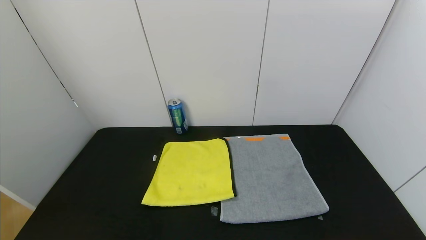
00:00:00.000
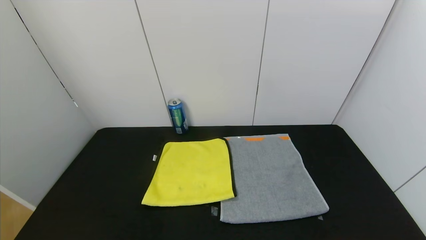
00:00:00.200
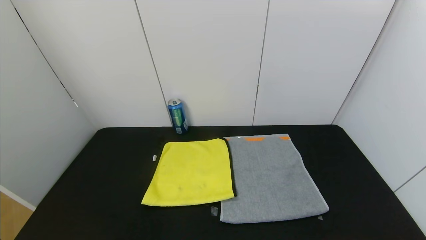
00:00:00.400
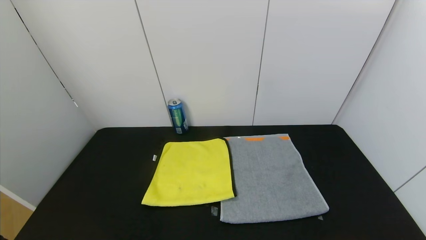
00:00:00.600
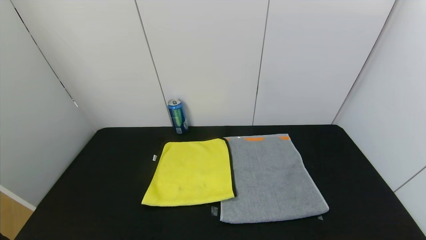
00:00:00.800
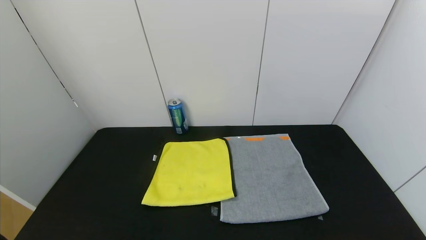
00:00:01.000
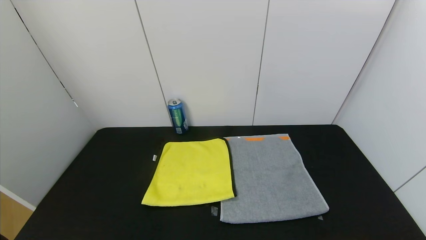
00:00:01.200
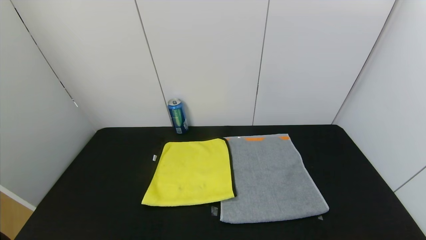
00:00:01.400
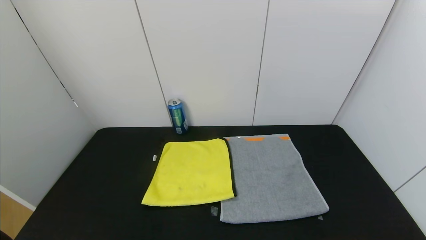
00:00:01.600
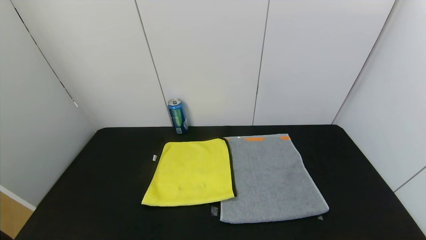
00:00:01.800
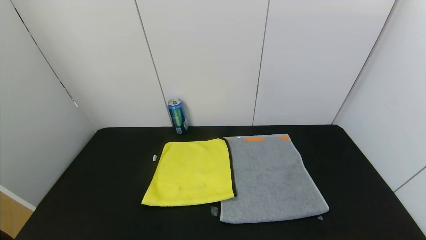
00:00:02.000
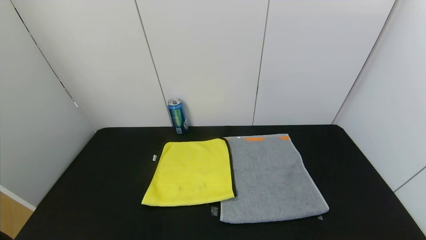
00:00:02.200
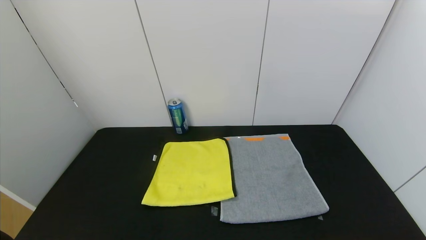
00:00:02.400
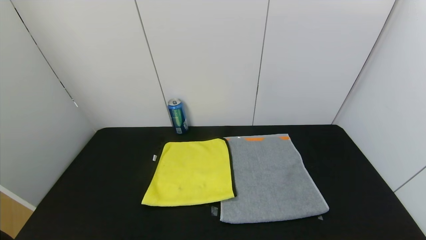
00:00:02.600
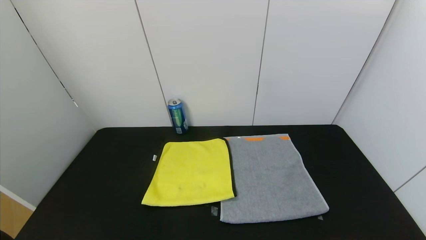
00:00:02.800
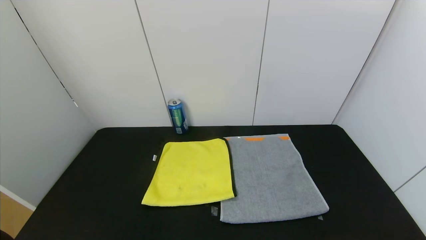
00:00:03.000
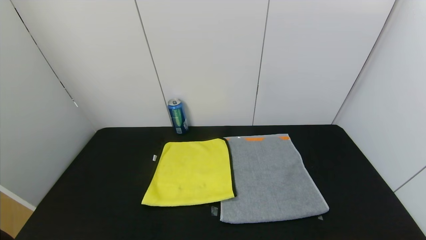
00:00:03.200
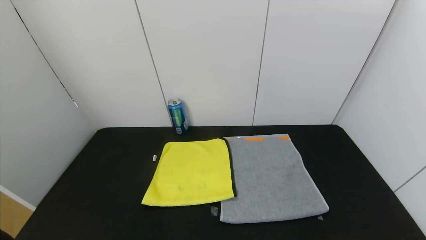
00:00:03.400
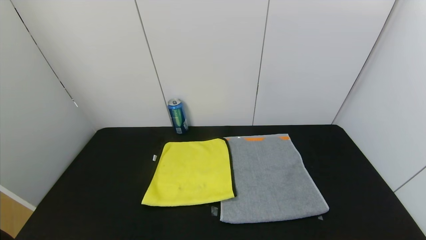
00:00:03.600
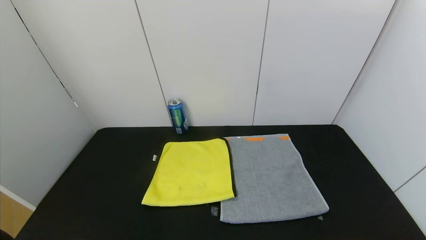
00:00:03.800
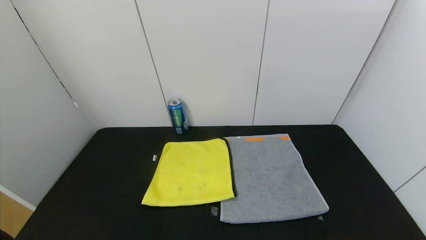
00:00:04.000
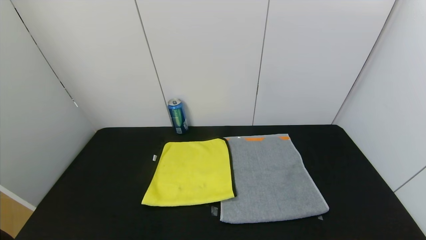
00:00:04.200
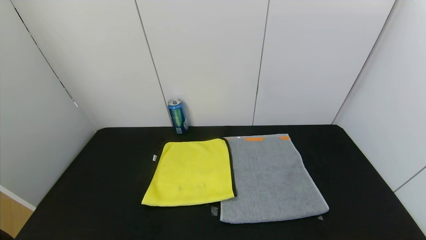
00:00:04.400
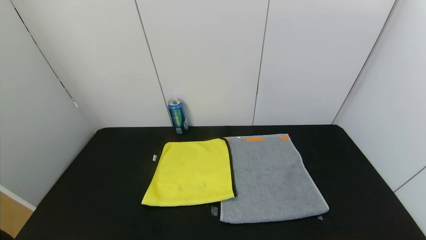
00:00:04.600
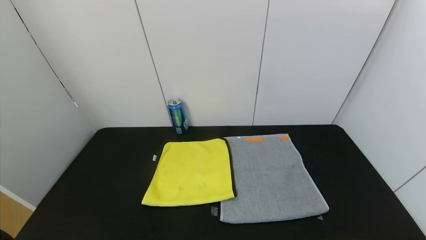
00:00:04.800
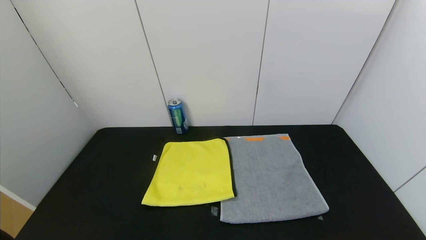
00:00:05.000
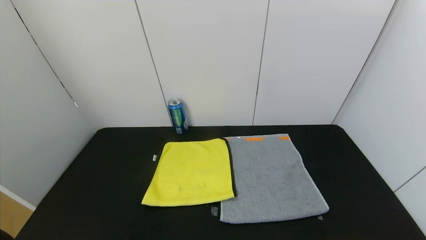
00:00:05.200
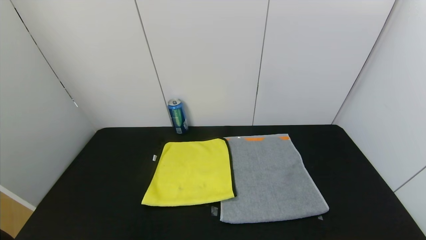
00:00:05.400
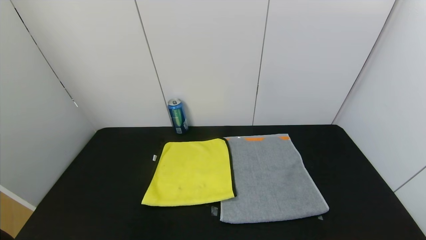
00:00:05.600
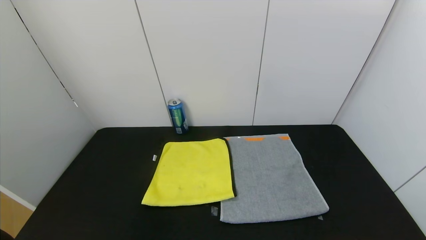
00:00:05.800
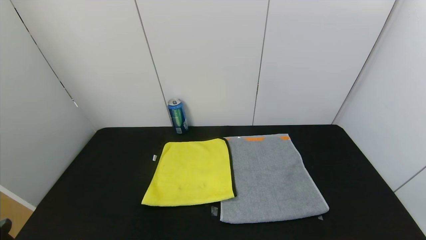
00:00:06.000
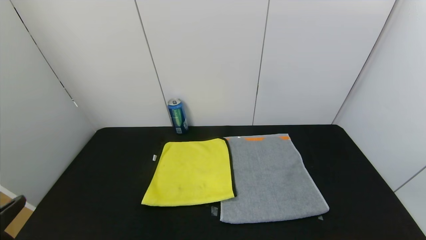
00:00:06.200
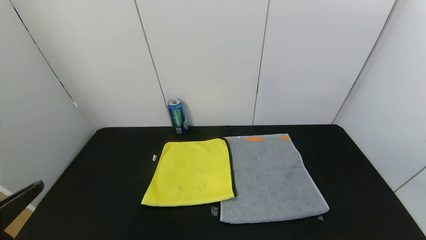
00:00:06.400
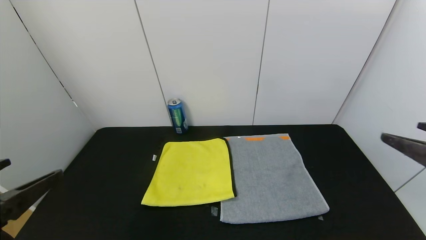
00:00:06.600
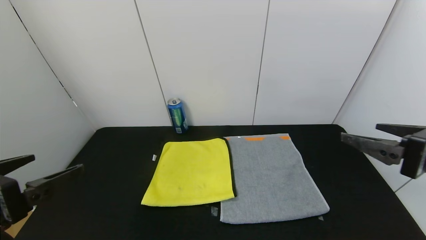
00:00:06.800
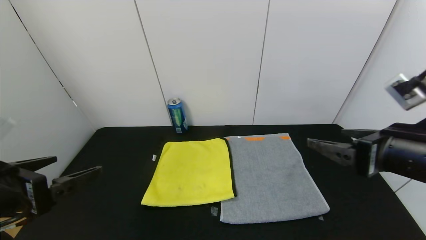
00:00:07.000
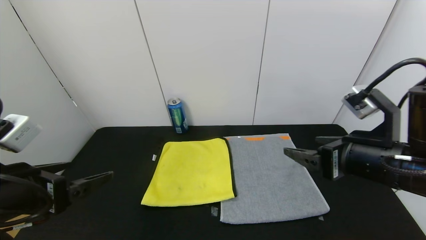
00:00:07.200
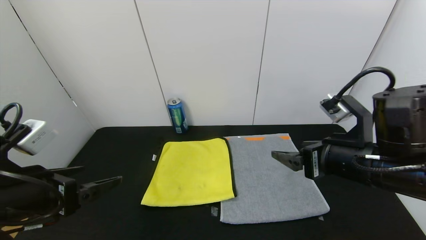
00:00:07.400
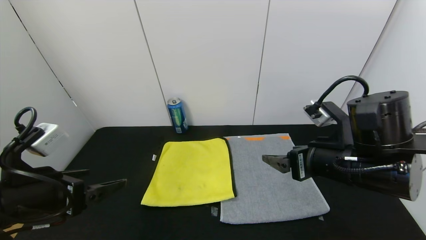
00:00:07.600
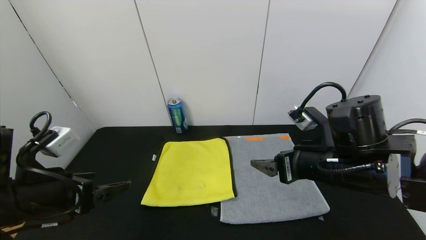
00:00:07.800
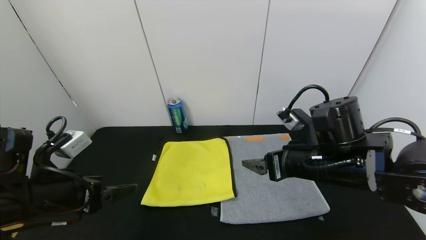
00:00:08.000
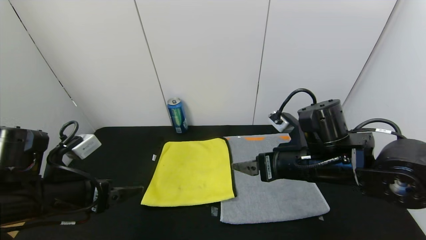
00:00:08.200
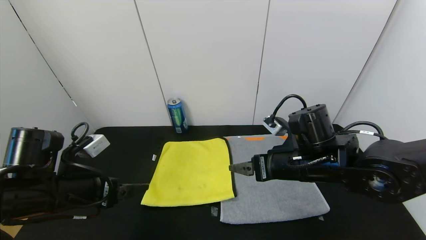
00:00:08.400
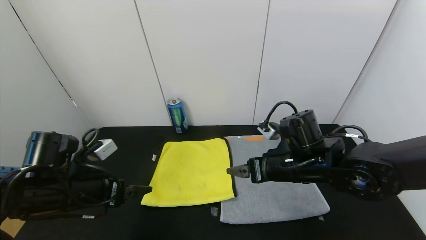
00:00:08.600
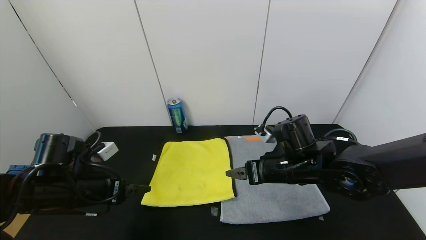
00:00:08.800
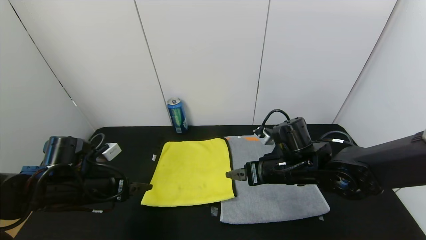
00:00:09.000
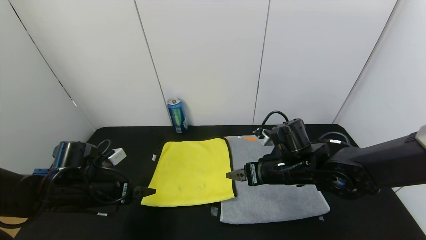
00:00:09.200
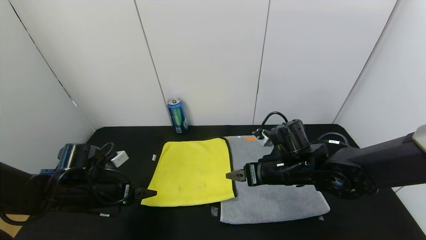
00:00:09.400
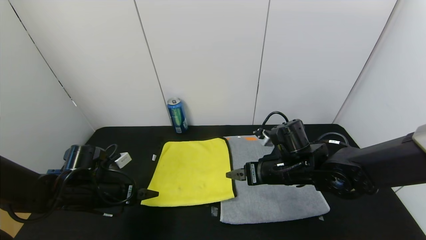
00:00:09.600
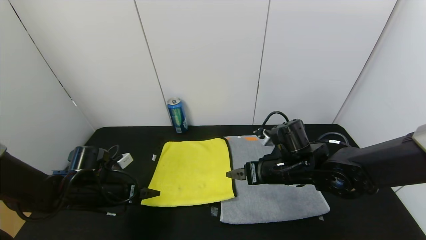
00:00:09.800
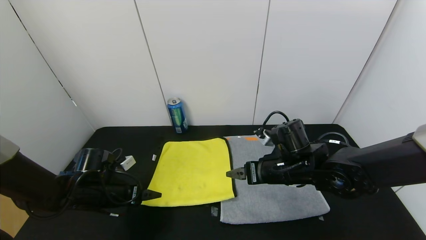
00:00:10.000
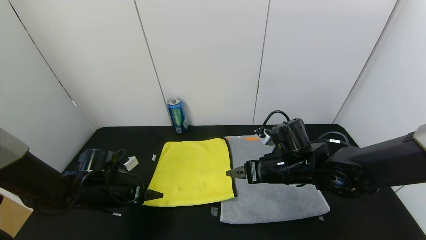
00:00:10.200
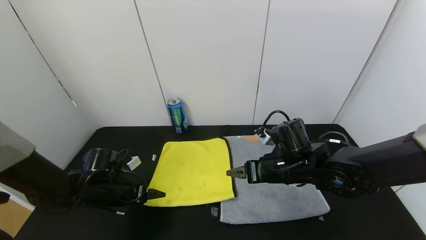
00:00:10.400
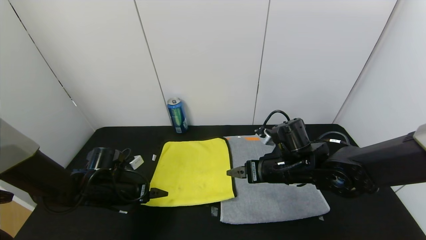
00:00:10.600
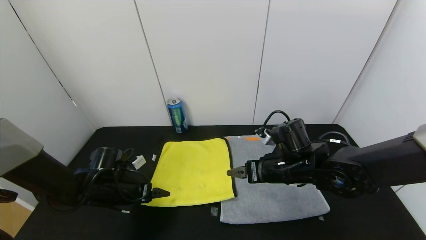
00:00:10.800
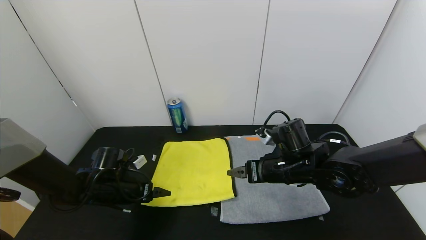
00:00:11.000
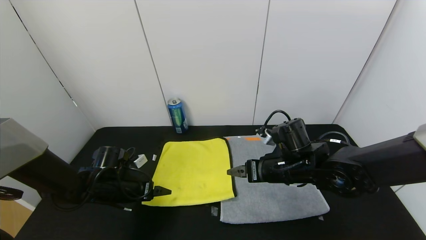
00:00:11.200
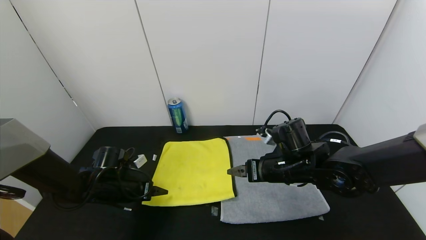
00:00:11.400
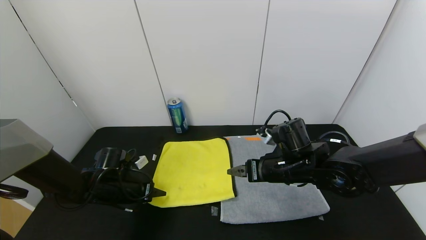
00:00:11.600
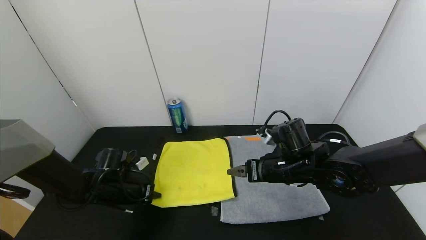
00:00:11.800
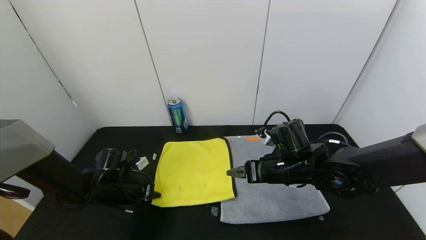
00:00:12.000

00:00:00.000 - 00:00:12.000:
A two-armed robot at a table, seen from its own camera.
Task of the whole recording: Use the gripper to fold the yellow towel and grey towel in half twice,then put the yellow towel on the grey towel.
00:00:00.000 - 00:00:04.400: Neither gripper changes place.
00:00:06.000 - 00:00:07.600: The right gripper moves forward and to the left, about 30 cm; the left gripper shifts about 15 cm forward.
00:00:07.600 - 00:00:09.000: The left gripper is displaced forward and downward by approximately 15 cm, while the right gripper shifts some 10 cm downward, forward and to the left.
00:00:09.000 - 00:00:10.400: The left gripper goes approximately 5 cm downward.
00:00:10.400 - 00:00:12.000: The left gripper closes its fingers.

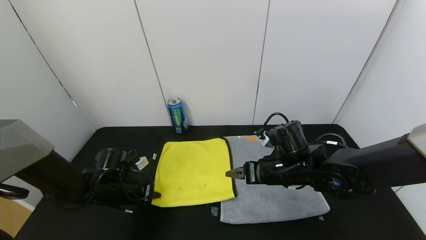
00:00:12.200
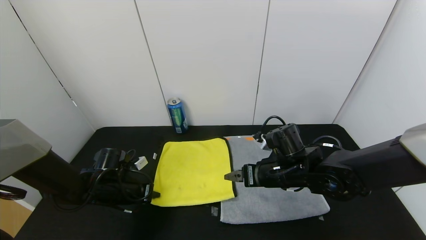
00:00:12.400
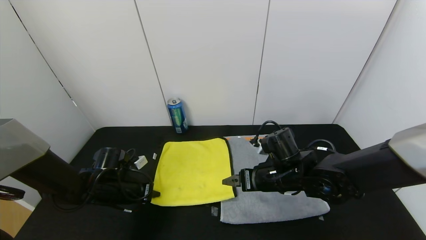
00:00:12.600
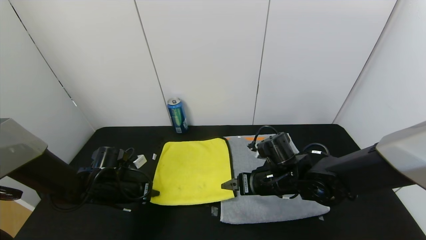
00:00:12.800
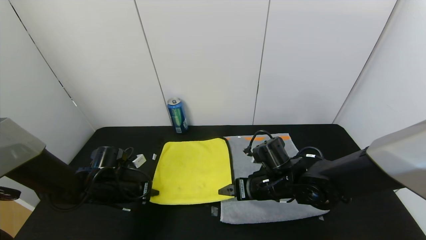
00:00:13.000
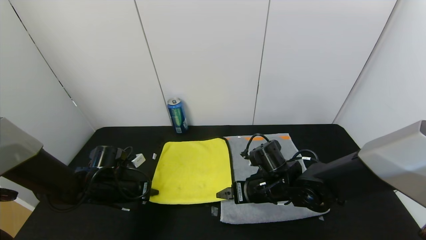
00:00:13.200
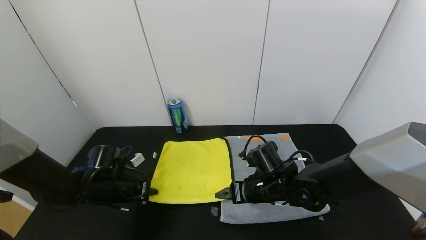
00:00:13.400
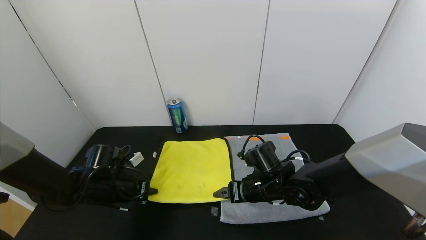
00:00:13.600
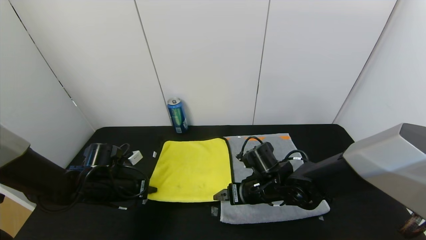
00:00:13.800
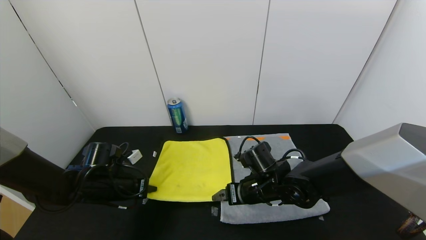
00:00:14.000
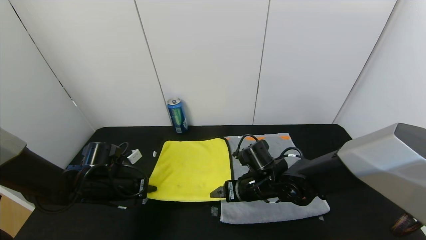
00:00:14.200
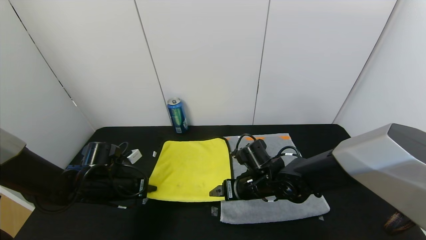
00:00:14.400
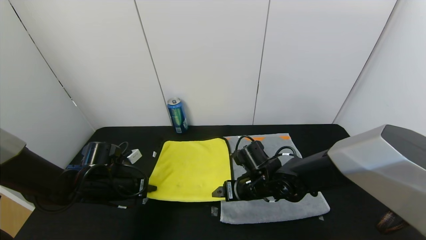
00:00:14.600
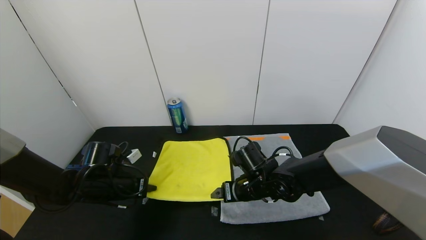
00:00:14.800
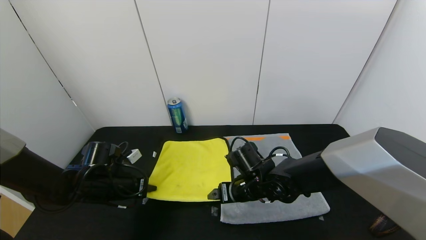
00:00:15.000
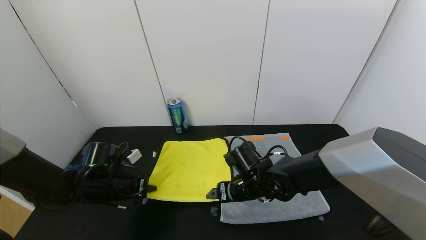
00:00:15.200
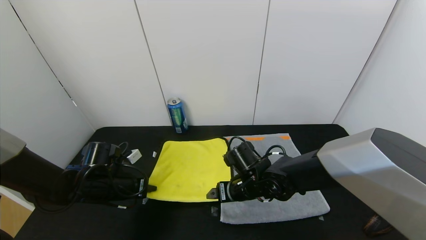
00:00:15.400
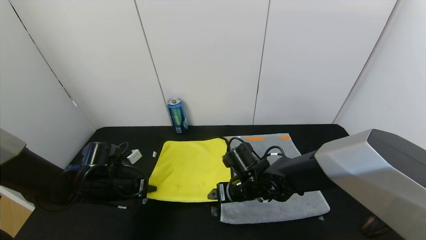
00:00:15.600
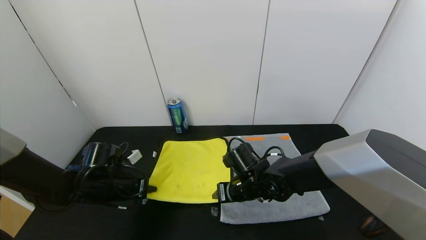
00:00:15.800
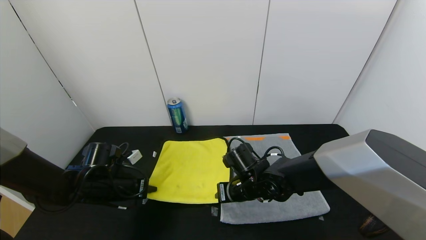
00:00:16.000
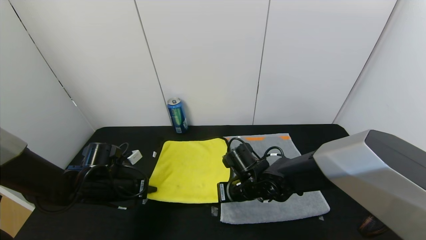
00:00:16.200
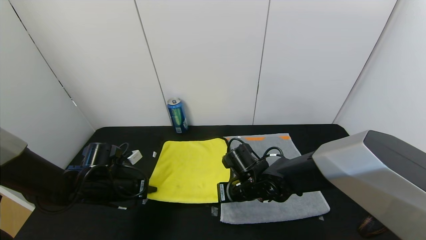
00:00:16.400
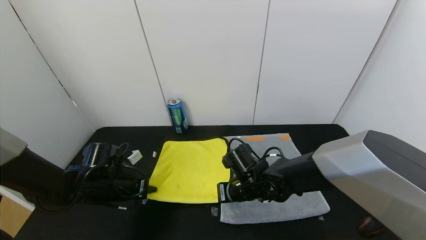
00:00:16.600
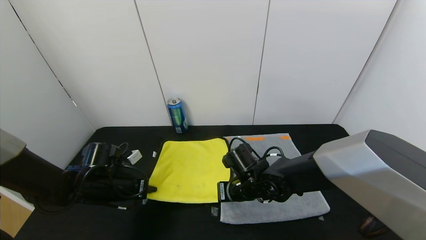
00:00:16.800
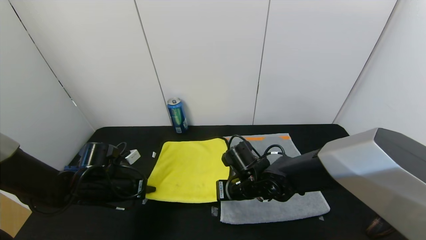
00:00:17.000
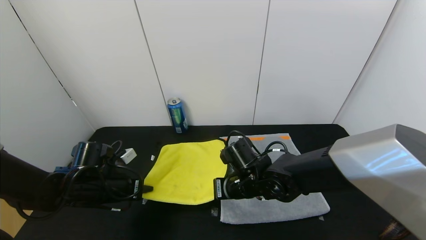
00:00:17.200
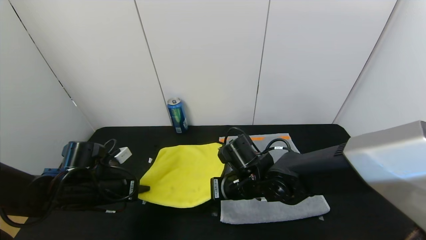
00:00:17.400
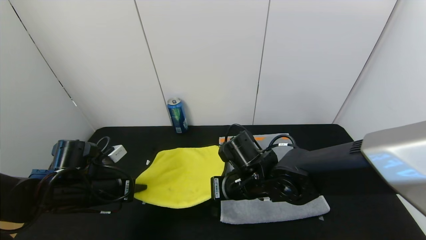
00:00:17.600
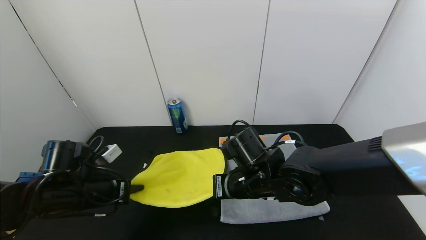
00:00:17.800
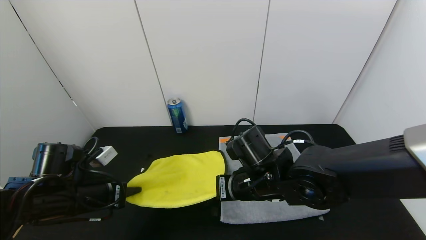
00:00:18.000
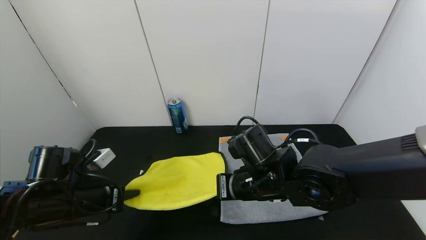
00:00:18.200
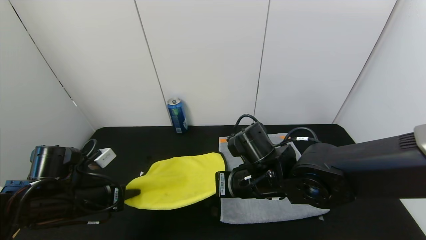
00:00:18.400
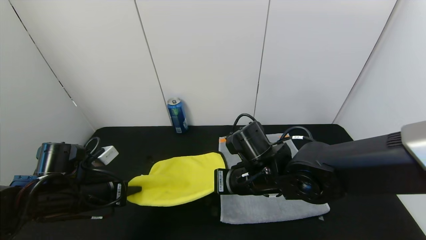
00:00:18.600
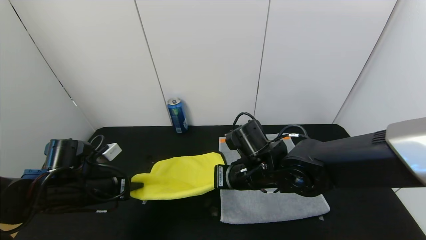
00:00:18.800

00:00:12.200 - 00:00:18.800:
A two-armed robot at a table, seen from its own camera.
Task of the whole recording: Use the gripper to fold the yellow towel and grey towel in half twice,then put the yellow towel on the grey towel.
00:00:12.200 - 00:00:13.800: The right gripper heads downward, covering some 5 cm.
00:00:13.800 - 00:00:15.400: The grippers move only a little.
00:00:15.400 - 00:00:17.200: The right gripper closes its fingers.
00:00:17.200 - 00:00:18.800: The right gripper travels upward by roughly 5 cm.
